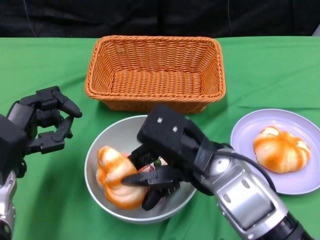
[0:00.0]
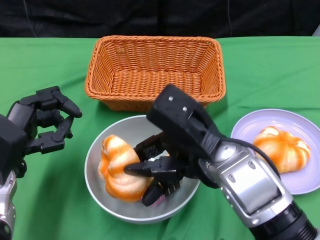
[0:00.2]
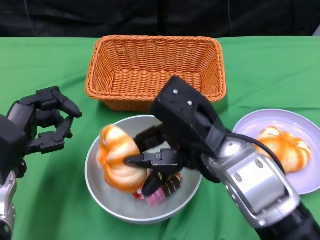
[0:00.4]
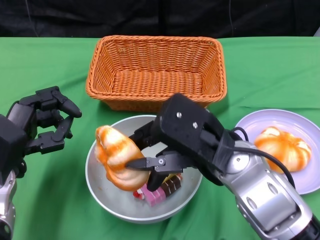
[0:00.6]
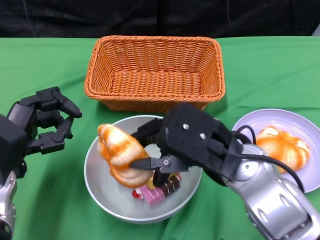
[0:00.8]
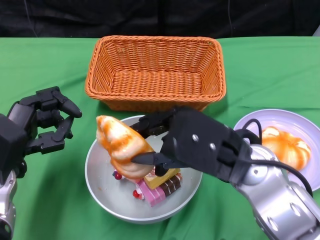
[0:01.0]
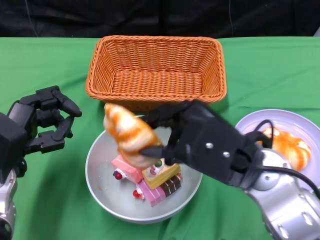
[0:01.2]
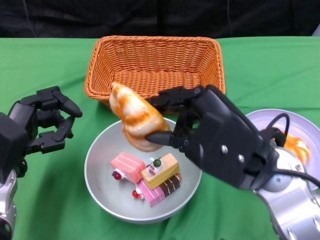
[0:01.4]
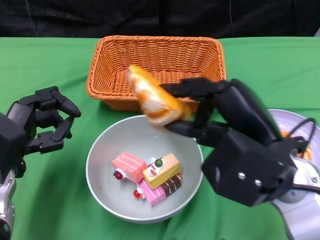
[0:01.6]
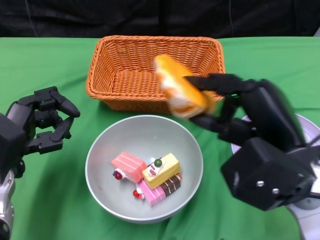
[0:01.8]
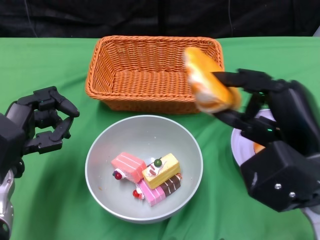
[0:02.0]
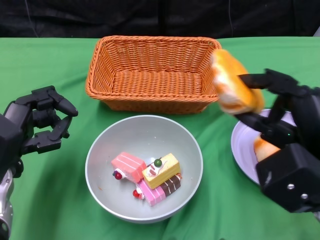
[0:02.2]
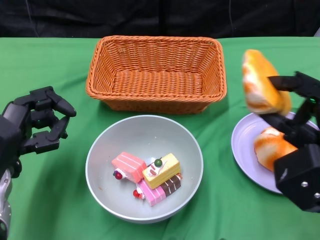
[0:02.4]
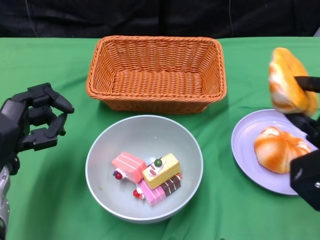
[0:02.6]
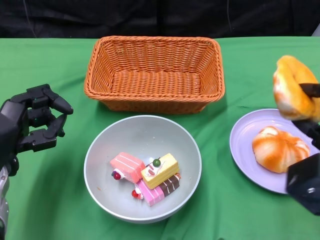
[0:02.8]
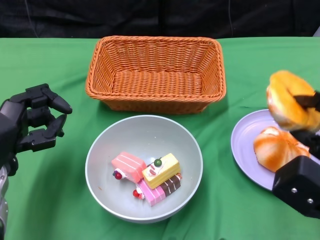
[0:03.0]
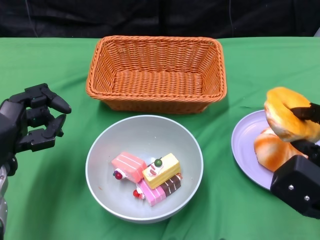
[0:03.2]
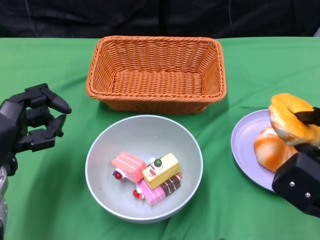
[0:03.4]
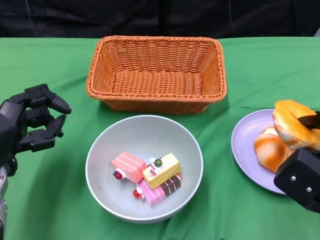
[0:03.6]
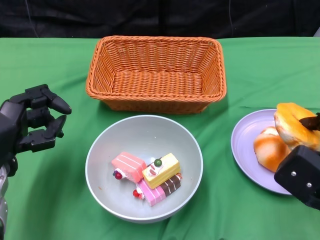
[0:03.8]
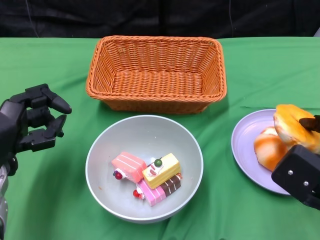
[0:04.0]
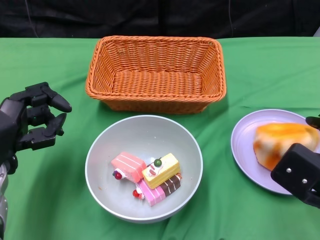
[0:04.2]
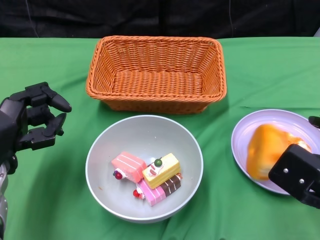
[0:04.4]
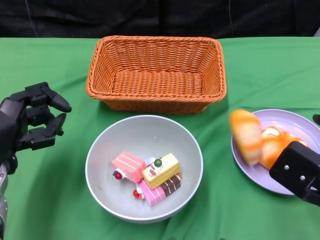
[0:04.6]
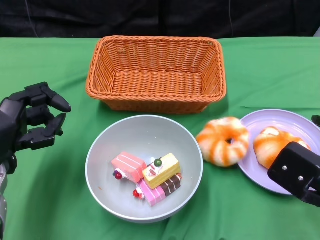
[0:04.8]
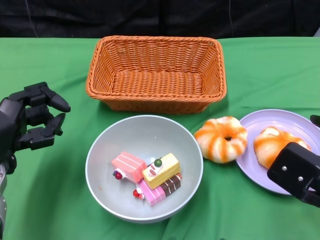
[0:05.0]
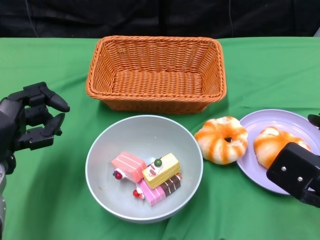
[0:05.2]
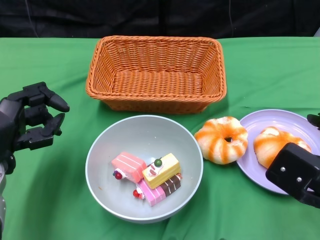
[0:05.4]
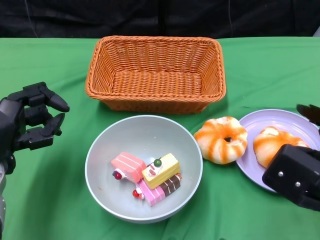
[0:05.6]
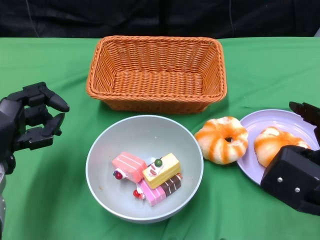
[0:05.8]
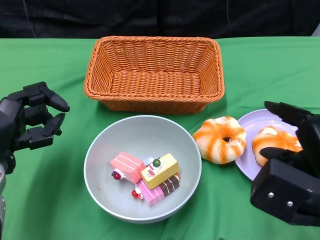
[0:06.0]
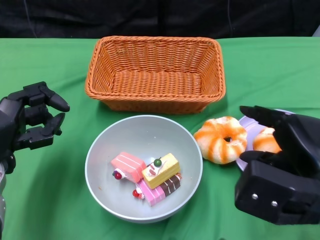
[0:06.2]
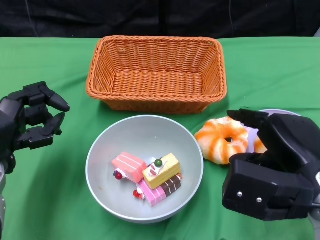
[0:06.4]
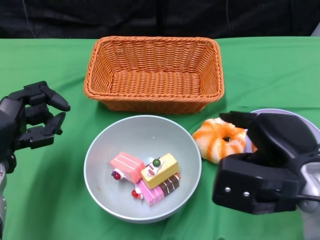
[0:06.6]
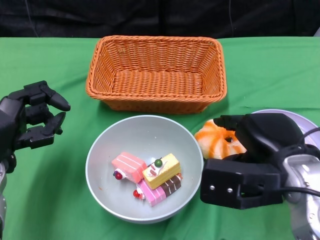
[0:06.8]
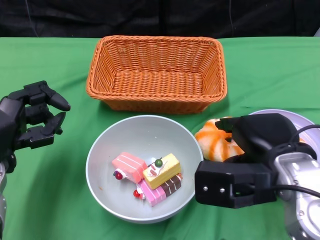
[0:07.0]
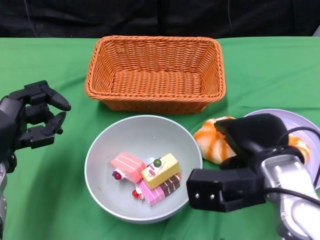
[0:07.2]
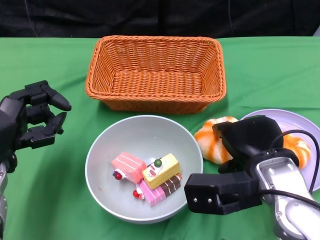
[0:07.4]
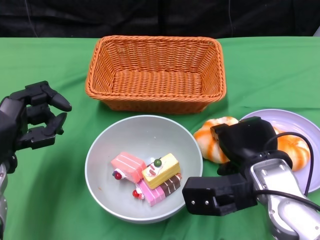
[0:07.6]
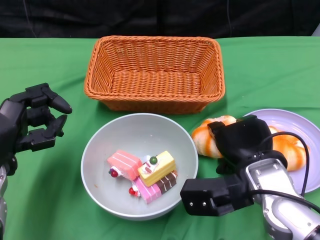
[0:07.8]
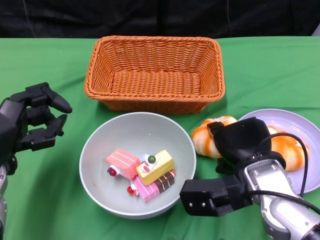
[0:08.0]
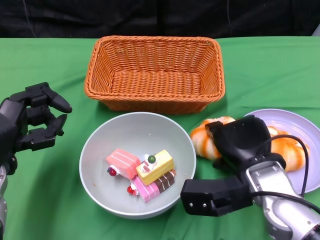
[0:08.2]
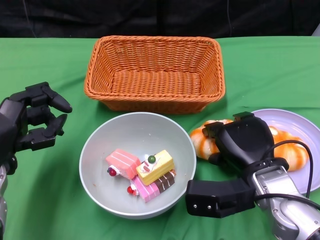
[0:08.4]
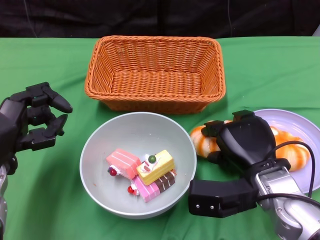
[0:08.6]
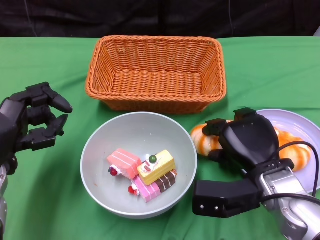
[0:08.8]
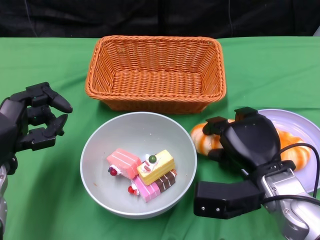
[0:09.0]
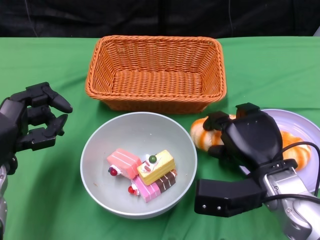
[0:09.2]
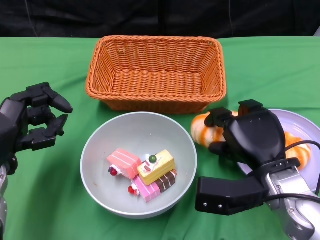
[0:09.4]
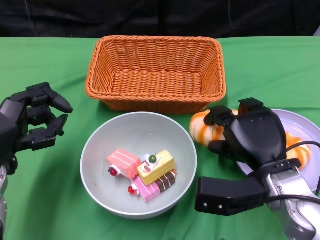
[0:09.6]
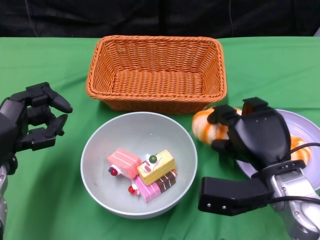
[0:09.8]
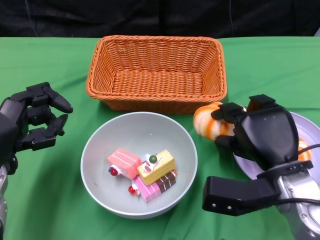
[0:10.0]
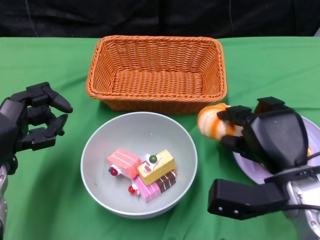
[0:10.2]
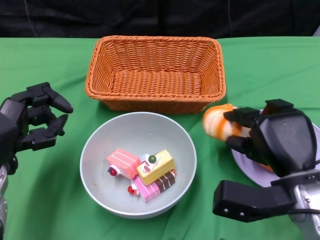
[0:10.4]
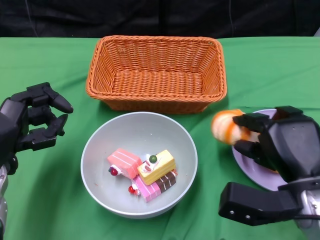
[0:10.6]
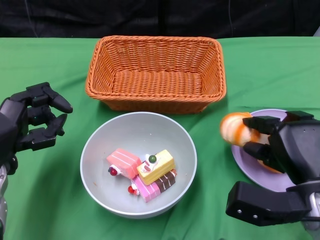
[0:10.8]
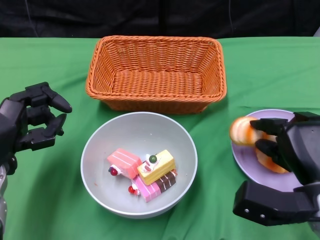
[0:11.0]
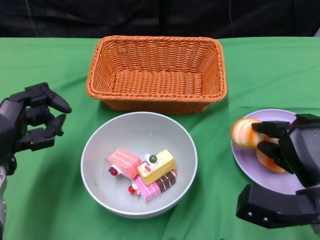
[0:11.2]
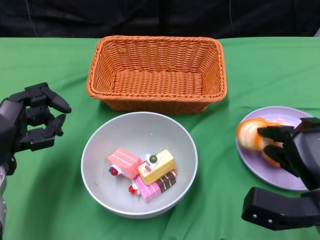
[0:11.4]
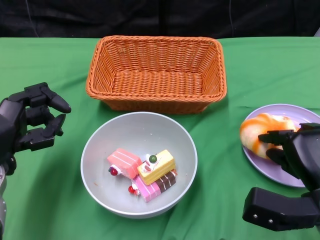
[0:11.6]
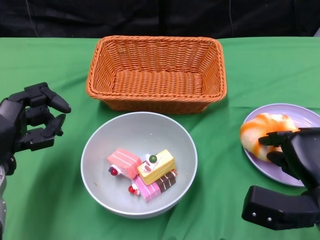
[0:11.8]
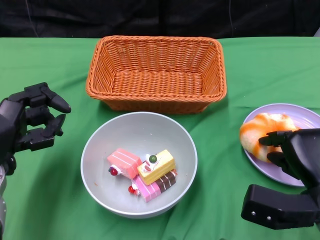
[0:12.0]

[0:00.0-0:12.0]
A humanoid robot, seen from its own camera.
0:00.0 to 0:01.6: The right hand heads to the right, covering approximately 5 cm.
0:01.6 to 0:03.0: The right hand goes about 10 cm to the right and downward.
0:04.4 to 0:06.0: The hands stay close to where they were, moving slightly.
0:06.0 to 0:07.6: The right hand travels to the left and forward by about 10 cm.
0:09.0 to 0:10.4: The hands move only a little.
0:10.4 to 0:12.0: The hands move only a little.

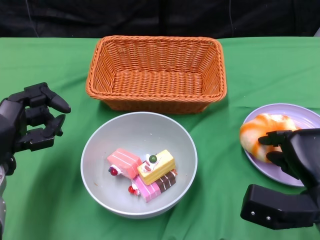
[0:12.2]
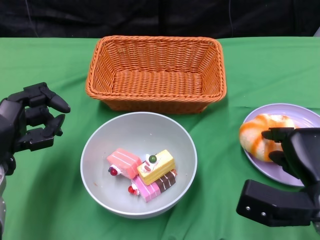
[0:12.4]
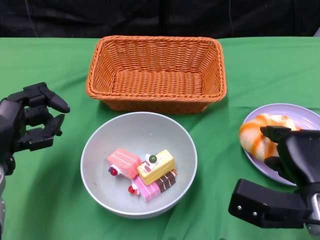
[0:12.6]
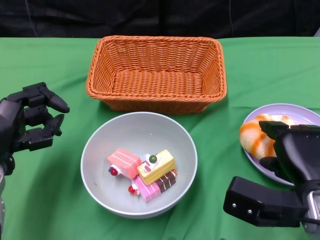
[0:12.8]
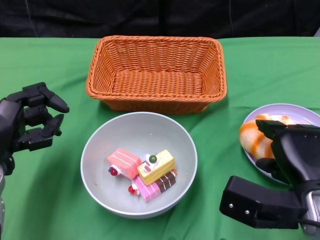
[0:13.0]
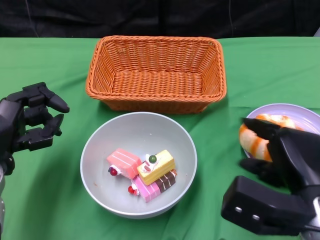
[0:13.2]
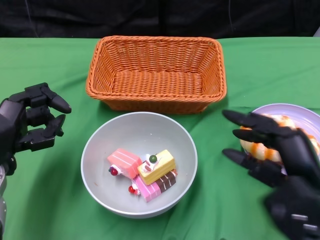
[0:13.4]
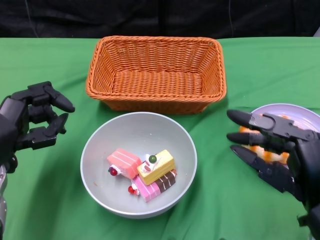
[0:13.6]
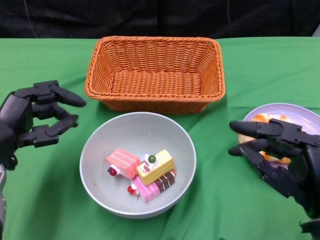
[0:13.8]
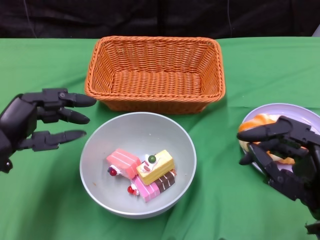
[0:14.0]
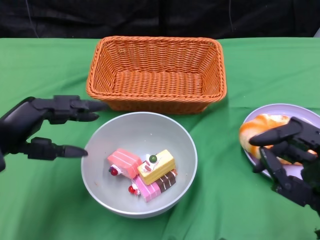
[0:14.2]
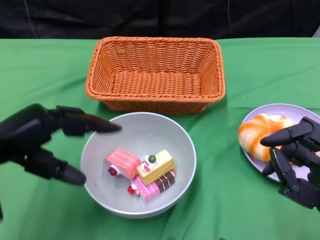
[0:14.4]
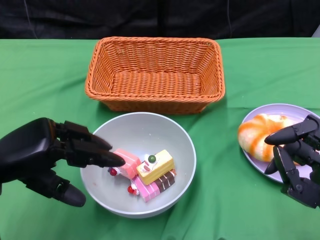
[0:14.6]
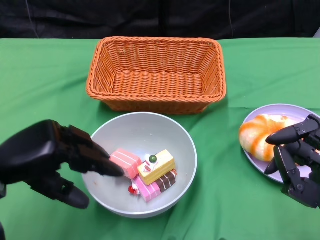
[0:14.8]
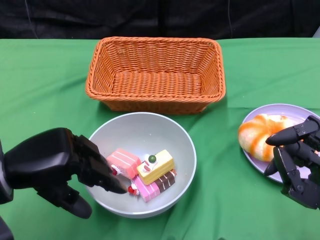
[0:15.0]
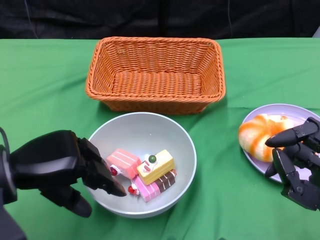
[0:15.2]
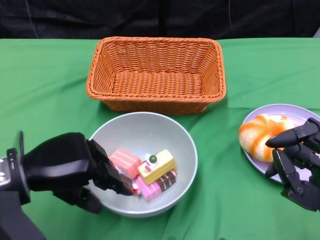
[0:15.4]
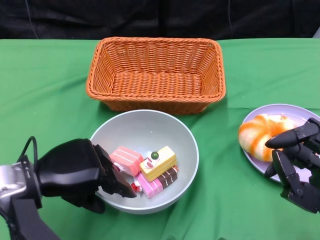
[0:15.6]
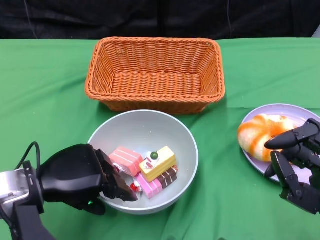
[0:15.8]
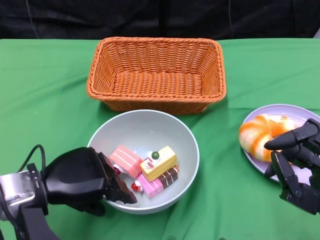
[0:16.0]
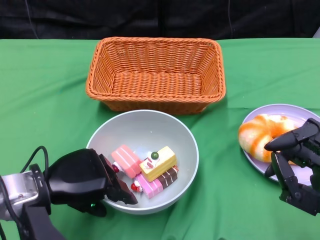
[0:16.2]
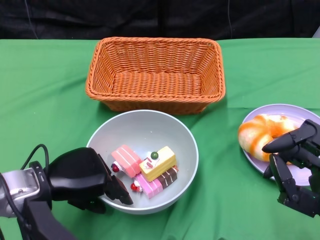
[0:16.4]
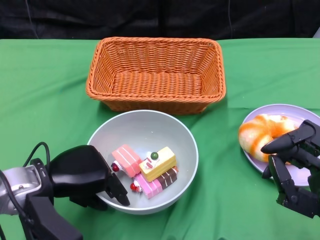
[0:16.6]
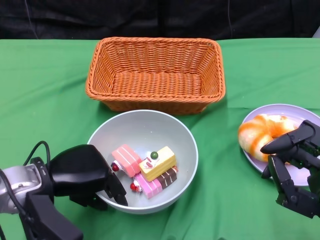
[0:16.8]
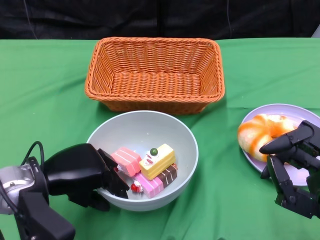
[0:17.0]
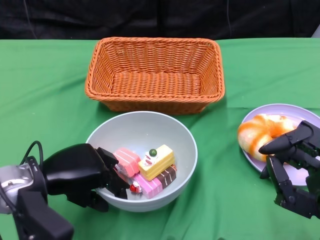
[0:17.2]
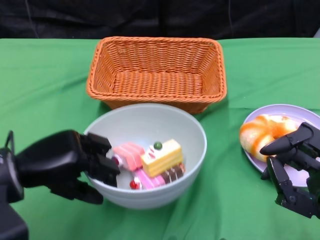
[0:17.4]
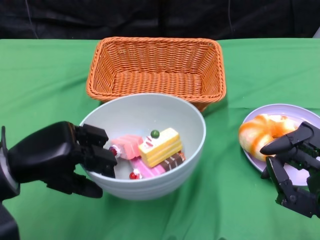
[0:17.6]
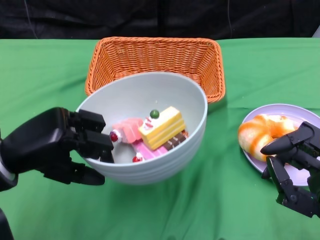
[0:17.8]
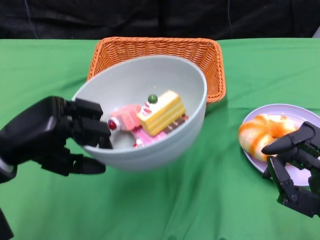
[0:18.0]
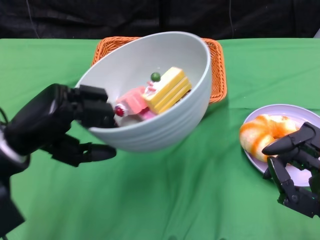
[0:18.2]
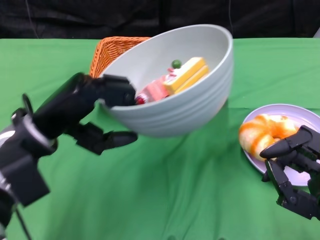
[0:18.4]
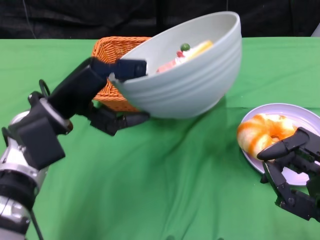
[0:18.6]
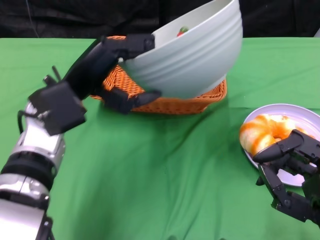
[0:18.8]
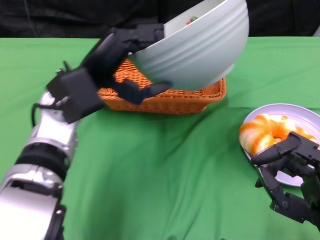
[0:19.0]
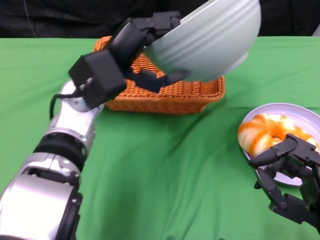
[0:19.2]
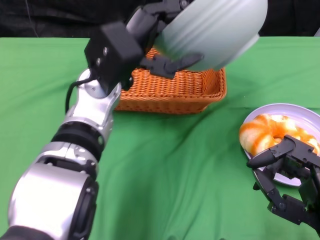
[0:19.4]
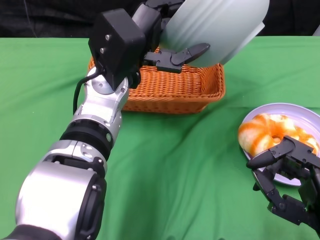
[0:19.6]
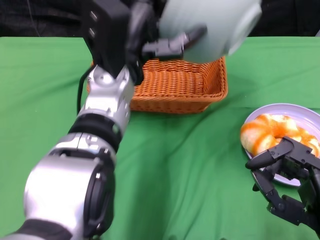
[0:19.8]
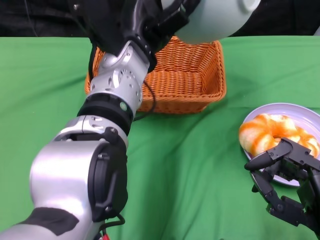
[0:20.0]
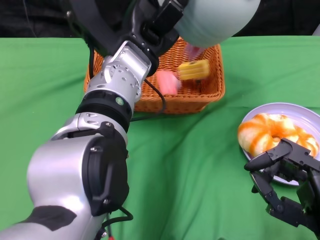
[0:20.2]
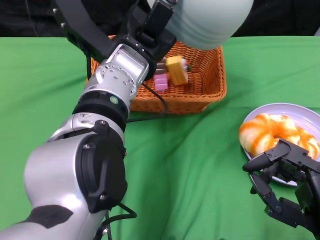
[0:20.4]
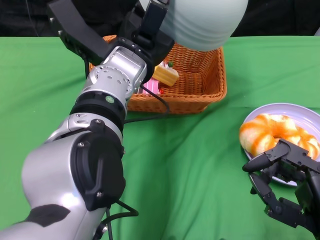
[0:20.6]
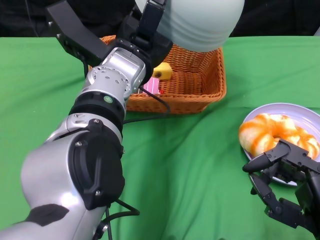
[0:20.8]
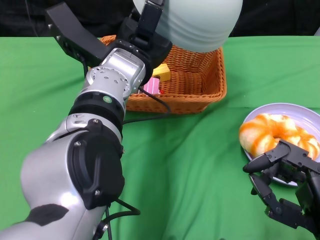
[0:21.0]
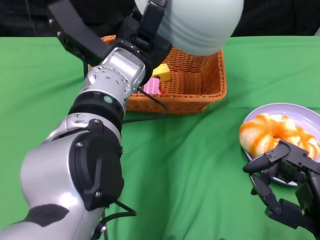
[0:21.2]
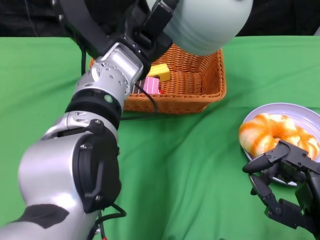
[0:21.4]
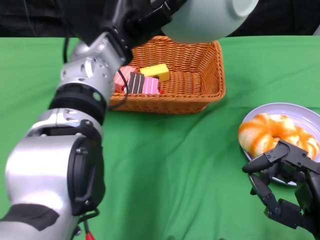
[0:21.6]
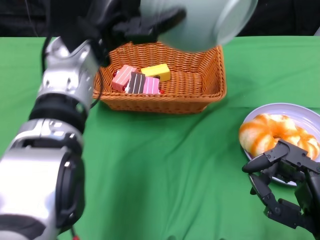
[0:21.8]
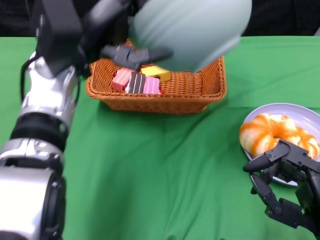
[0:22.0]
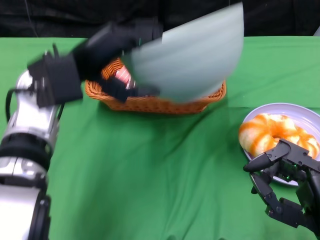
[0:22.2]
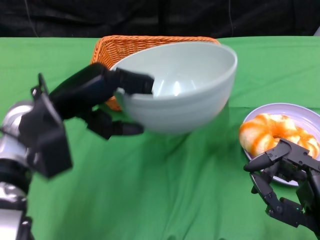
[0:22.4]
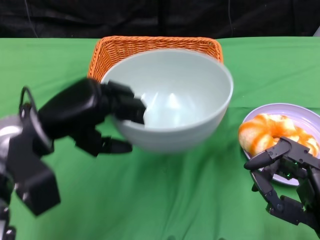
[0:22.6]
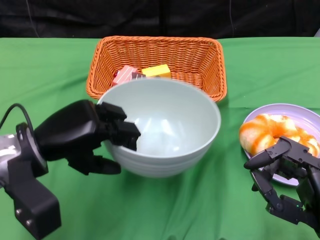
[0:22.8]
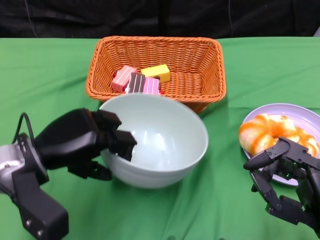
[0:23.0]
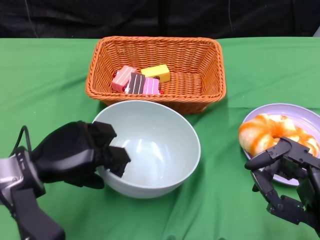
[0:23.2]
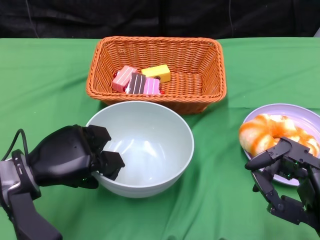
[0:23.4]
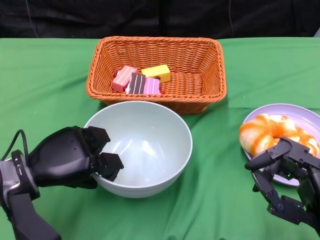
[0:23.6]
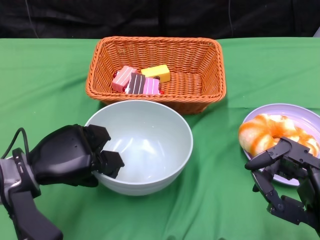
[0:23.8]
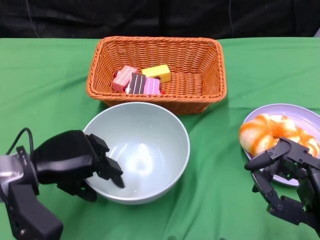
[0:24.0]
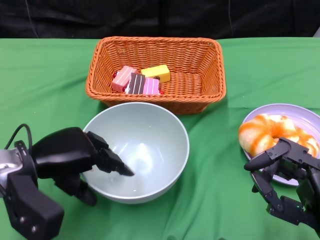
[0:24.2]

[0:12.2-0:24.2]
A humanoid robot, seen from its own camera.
Step, 0:13.4 to 0:17.4: Grasp the bowl with the left gripper.
Step, 0:17.6 to 0:21.0: Pour the cake into the basket with the left gripper.
0:12.2 to 0:13.8: The right hand shifts approximately 5 cm backward.
0:15.2 to 0:16.6: The left hand changes place by approximately 5 cm.
0:16.6 to 0:18.2: The left hand is displaced upward by roughly 5 cm.
0:18.2 to 0:19.8: The left hand heads to the right and forward, covering roughly 20 cm.
0:21.2 to 0:22.6: The left hand shifts about 15 cm to the left and backward.
0:22.6 to 0:24.2: The left hand goes some 5 cm downward.
